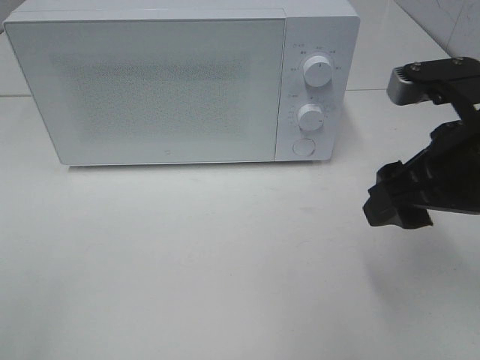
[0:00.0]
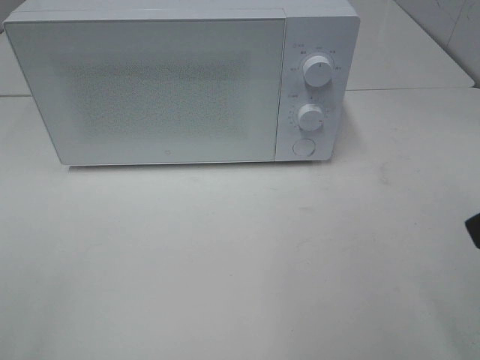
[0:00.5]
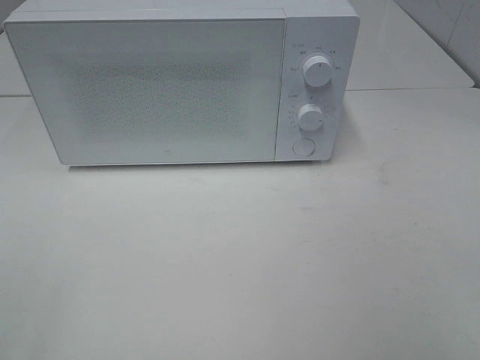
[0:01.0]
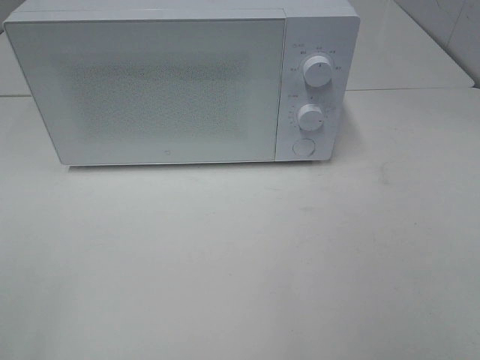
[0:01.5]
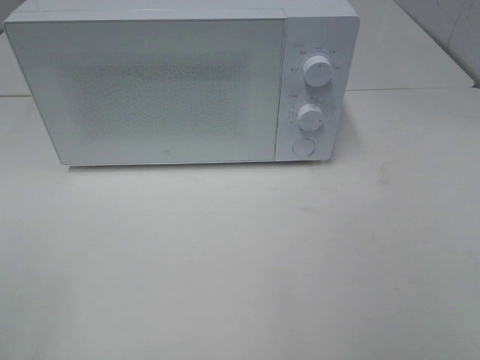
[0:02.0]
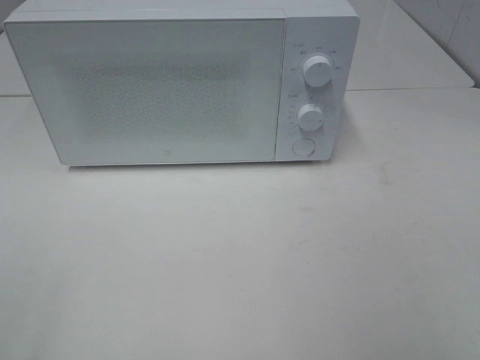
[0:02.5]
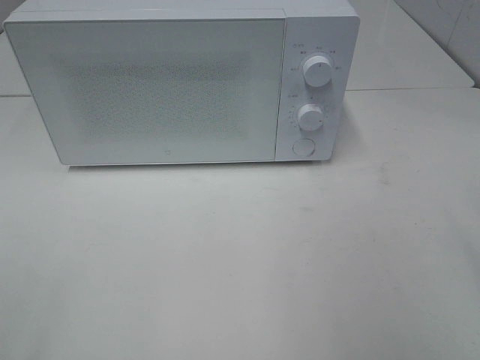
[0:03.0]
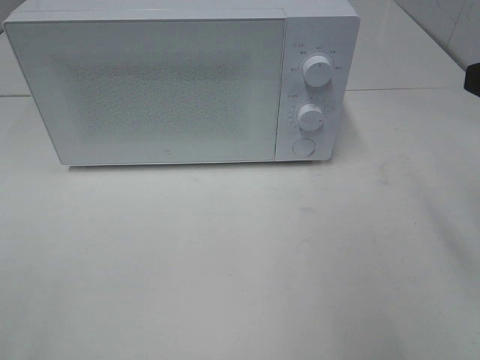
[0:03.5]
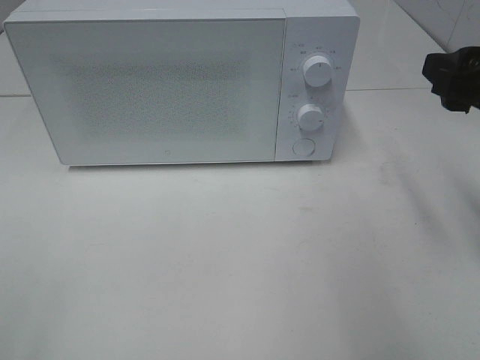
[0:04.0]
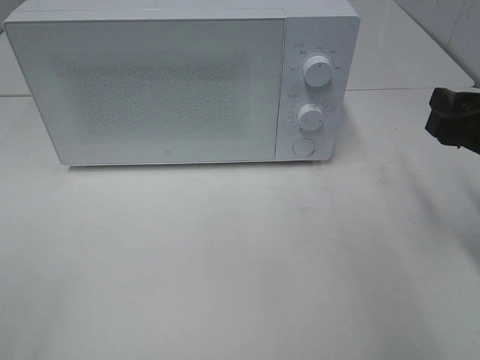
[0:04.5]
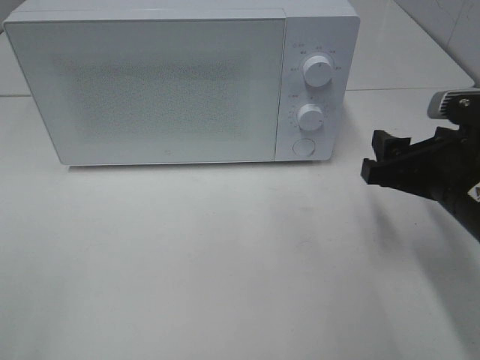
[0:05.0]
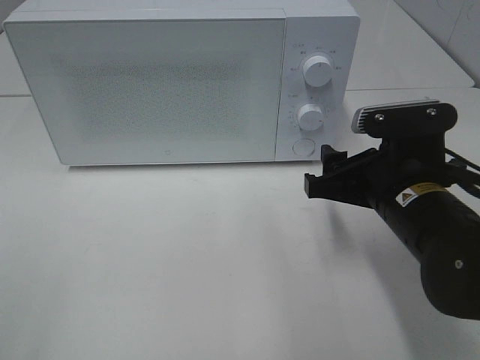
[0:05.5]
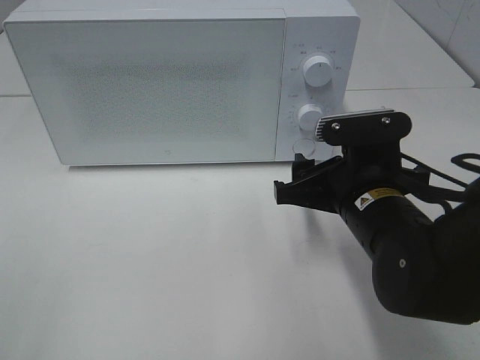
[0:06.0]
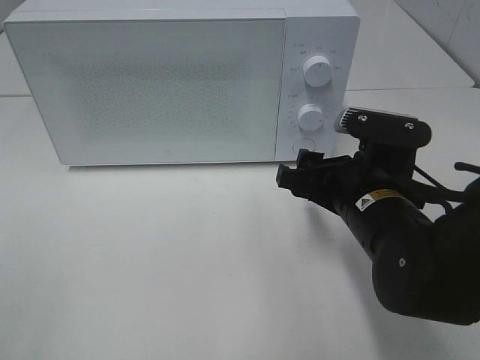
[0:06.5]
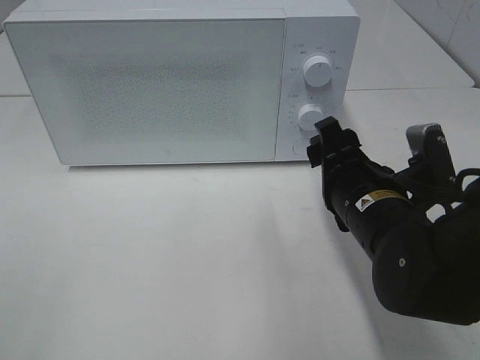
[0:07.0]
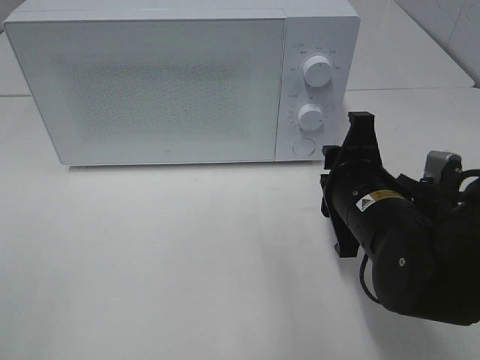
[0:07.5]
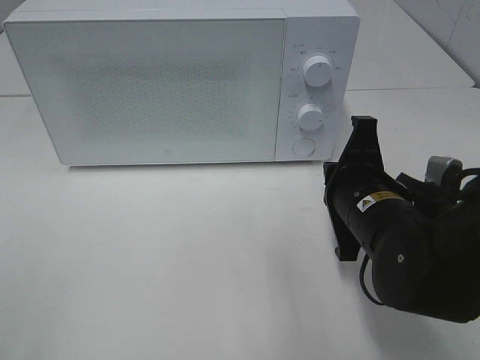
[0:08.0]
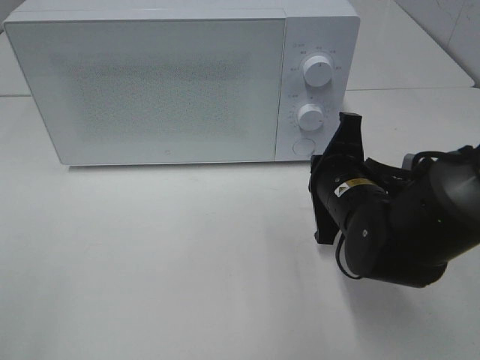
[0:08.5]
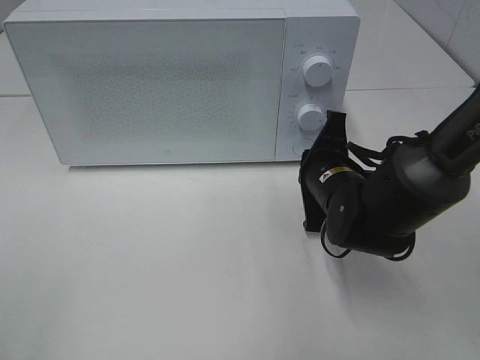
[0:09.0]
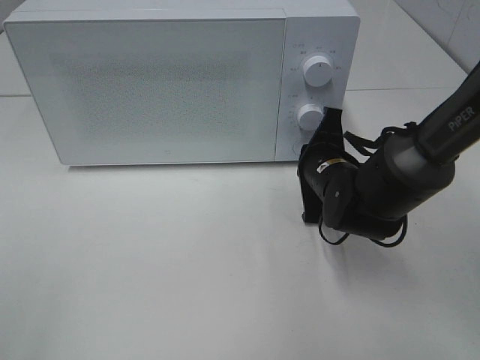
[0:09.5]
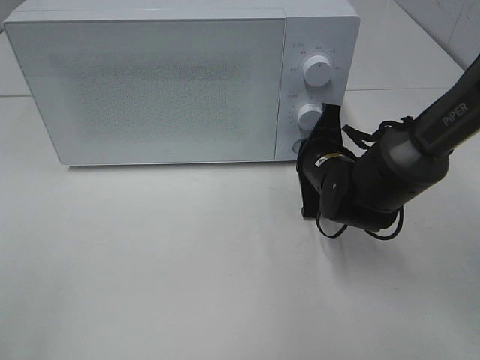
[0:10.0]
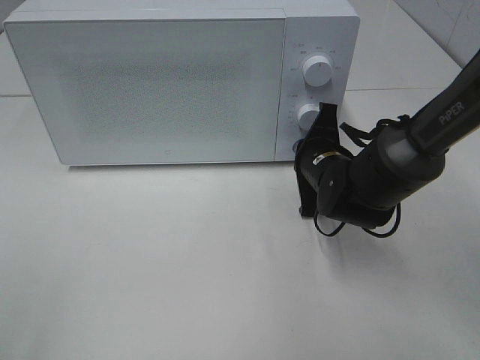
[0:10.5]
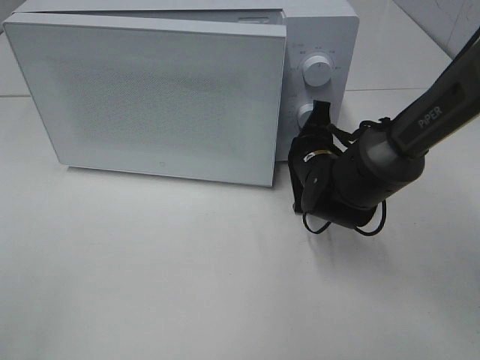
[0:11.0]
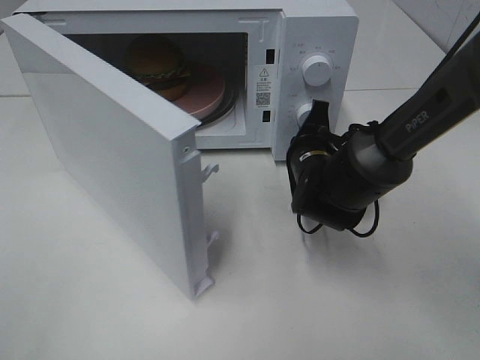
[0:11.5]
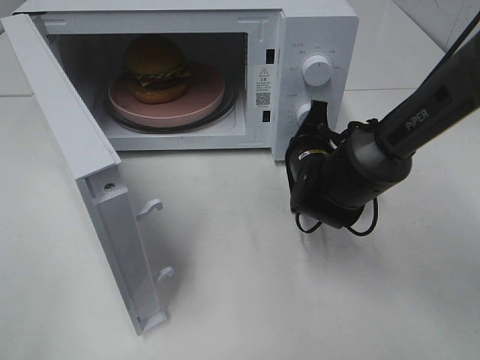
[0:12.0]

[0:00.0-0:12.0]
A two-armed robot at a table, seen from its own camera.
Task of the whole recording: Heat the burger.
0:00.0 to 0:02.0: The right gripper travels backward and to the right by roughly 20 cm.
0:02.0 to 0:04.0: The right gripper is displaced forward by some 20 cm.
0:04.0 to 0:06.0: The right gripper is displaced to the left and downward by roughly 15 cm.
0:06.0 to 0:08.0: The right gripper closes up.
0:08.0 to 0:10.0: The right gripper shifts approximately 10 cm forward.

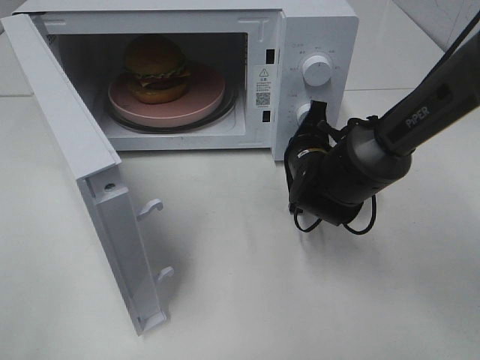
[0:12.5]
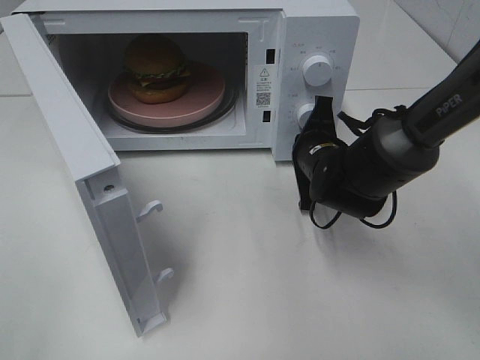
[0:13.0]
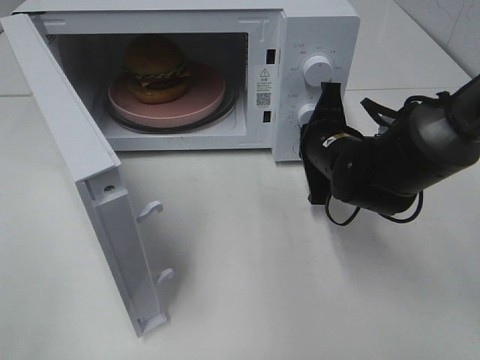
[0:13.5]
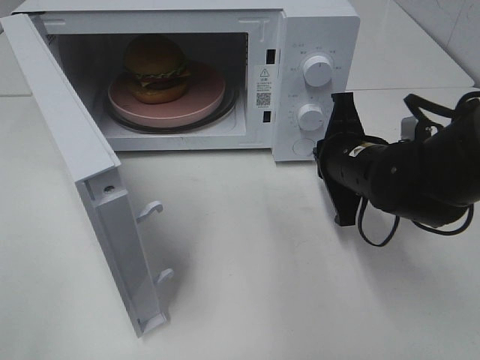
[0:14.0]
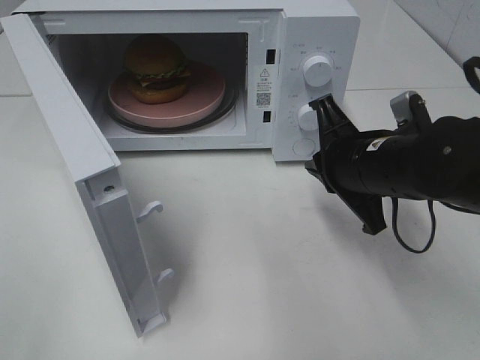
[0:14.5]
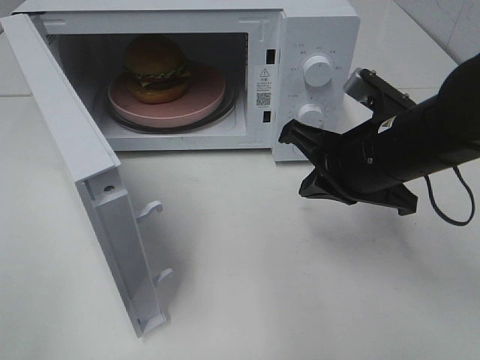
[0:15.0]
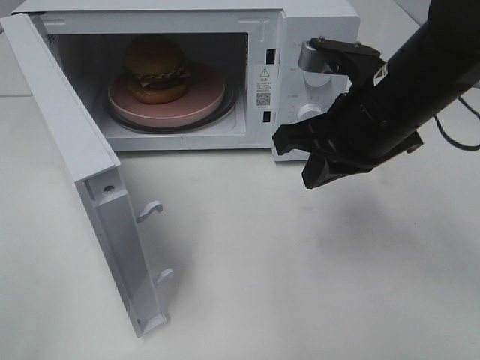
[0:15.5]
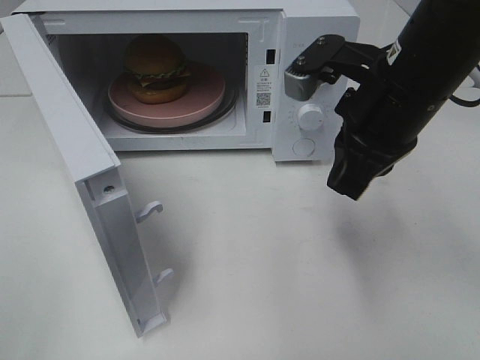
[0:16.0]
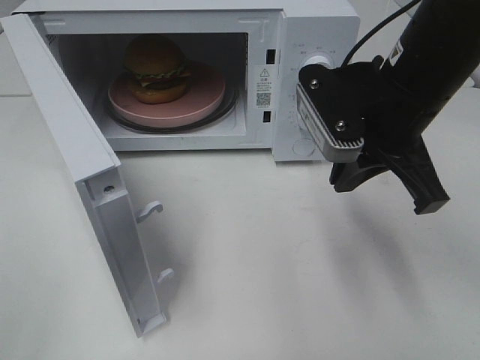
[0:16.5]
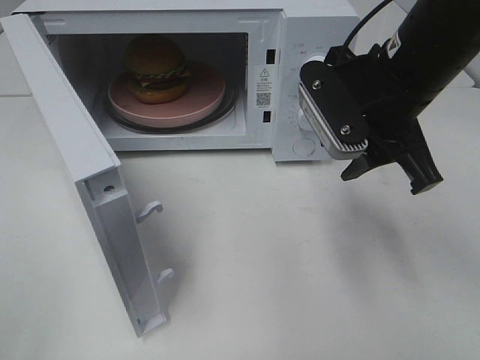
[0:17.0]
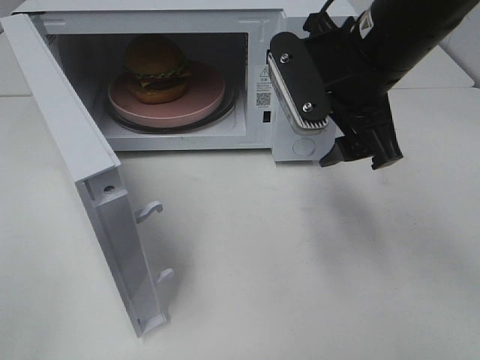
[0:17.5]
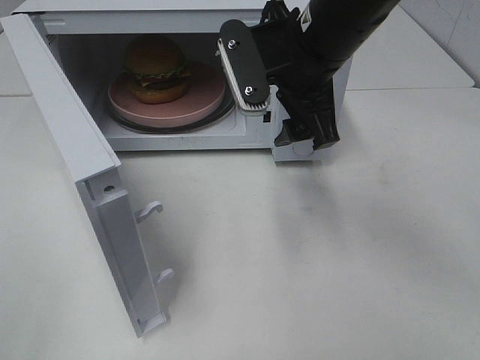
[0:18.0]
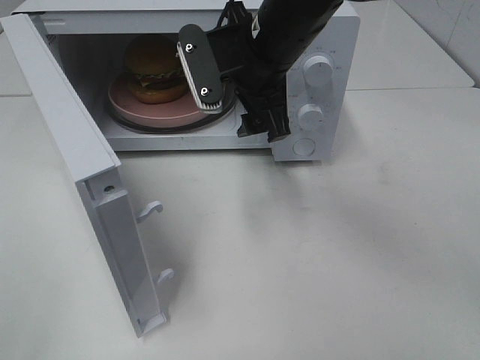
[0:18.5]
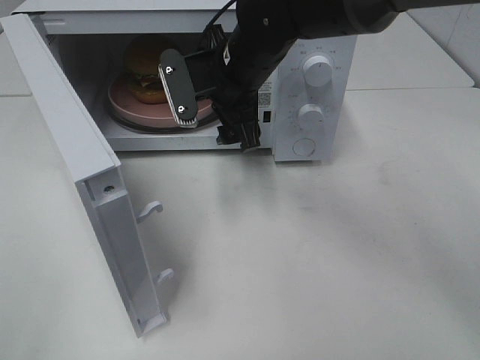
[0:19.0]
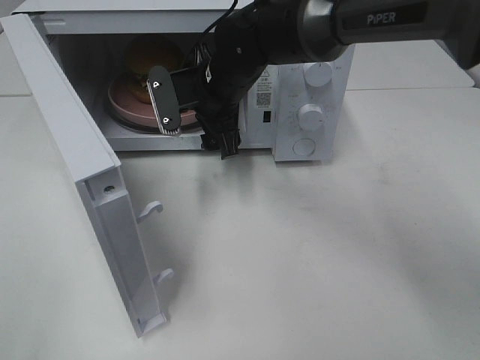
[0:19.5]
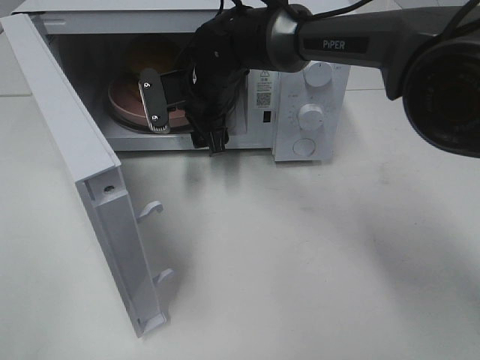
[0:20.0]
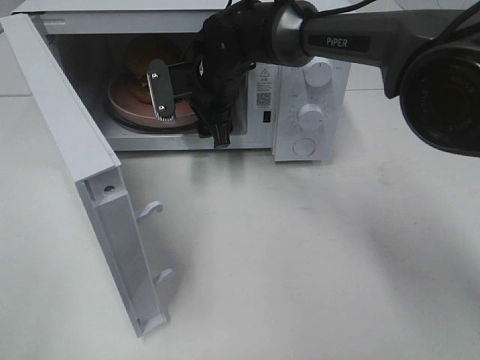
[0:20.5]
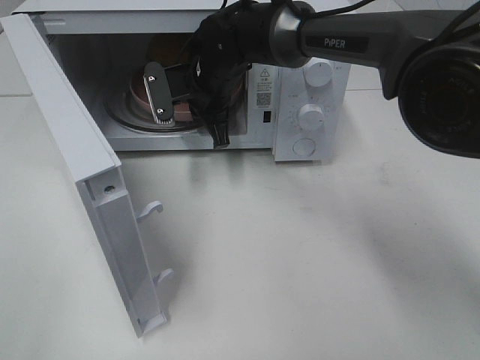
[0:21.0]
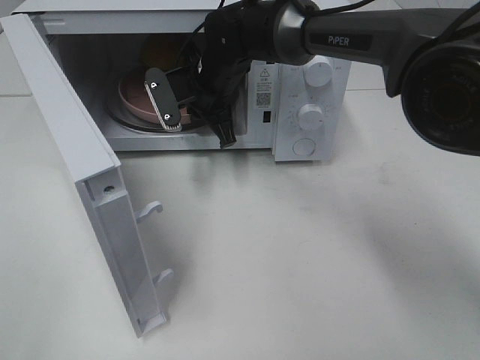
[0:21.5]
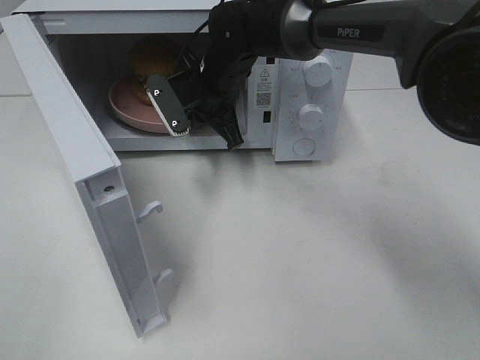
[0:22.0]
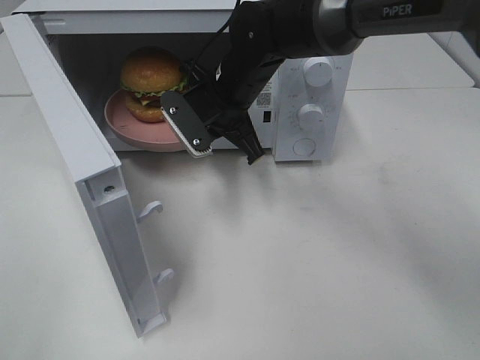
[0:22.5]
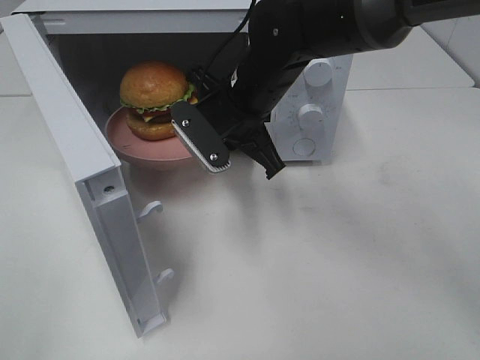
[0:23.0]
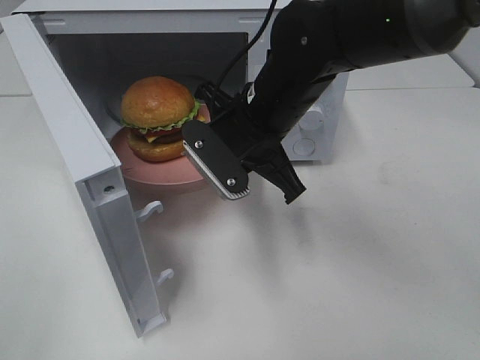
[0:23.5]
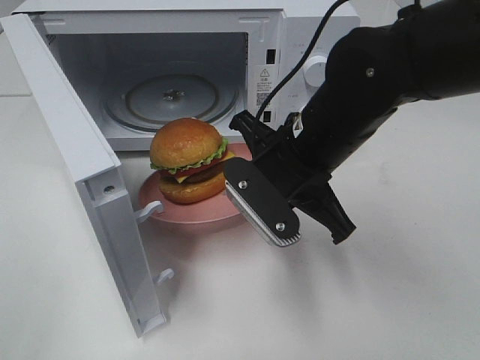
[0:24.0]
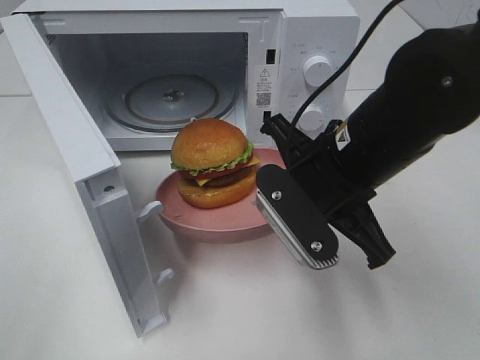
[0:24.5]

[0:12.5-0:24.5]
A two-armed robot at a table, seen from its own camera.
Task of the whole recording: Heat the burger.
Step, 0:14.5 to 0:21.5: Right hand: grab the plate with the hamburger.
0:12.5 to 0:14.5: The right gripper shifts about 15 cm backward and upward.
0:14.5 to 0:16.5: The right gripper moves upward, some 10 cm.
0:16.5 to 0:18.5: The right gripper heads to the left and forward, covering roughly 15 cm, and opens up.
0:18.5 to 0:20.5: The right gripper travels forward, downward and to the left by roughly 15 cm.
0:20.5 to 0:22.5: The right gripper is displaced backward by about 5 cm, and closes its fingers.
0:22.5 to 0:24.5: The right gripper heads backward and to the right, covering about 20 cm.

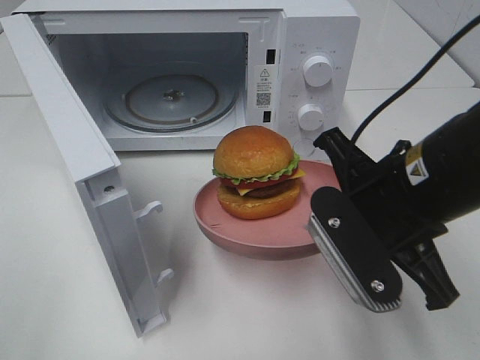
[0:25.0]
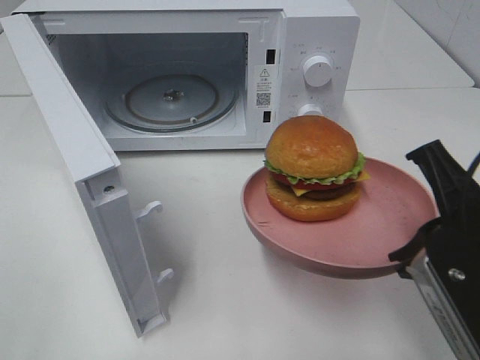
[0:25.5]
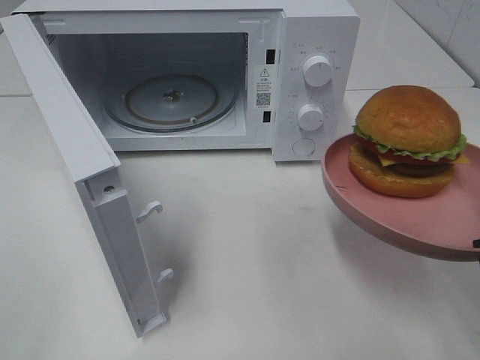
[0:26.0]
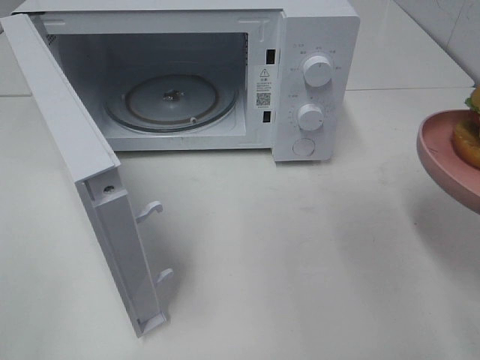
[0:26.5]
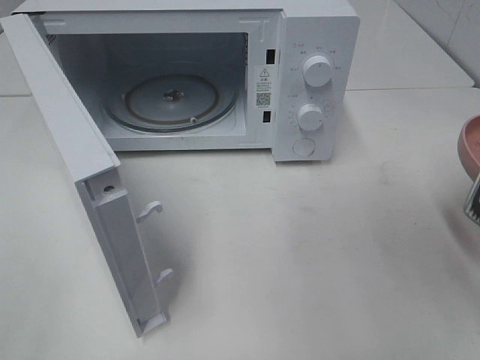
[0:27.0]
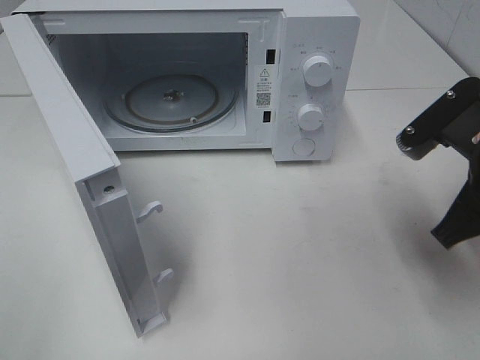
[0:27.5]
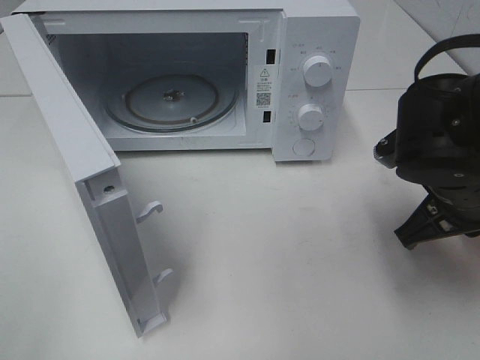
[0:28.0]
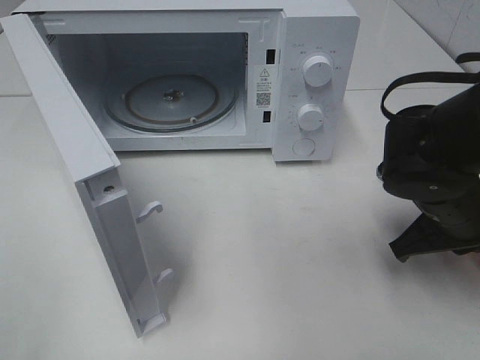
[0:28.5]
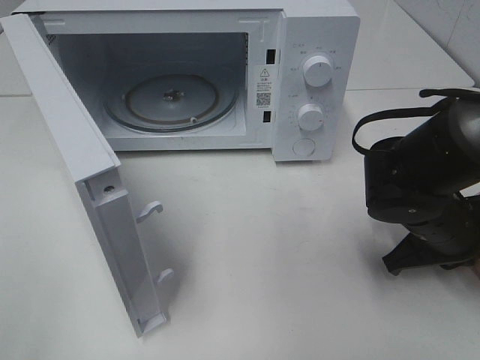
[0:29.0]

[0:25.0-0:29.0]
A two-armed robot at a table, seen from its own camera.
Task of the whole recording: Heat the burger.
0:25.0 to 0:27.0: The right gripper shifts approximately 10 cm to the right.
0:27.0 to 0:29.0: The right gripper heads downward and forward, covering approximately 15 cm.
